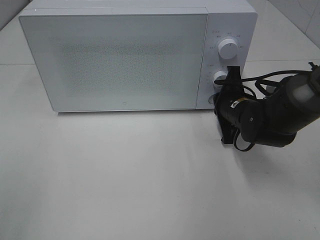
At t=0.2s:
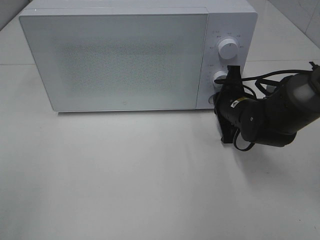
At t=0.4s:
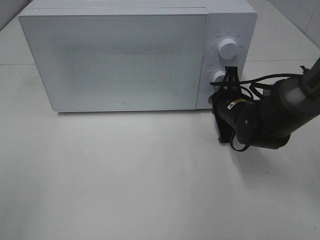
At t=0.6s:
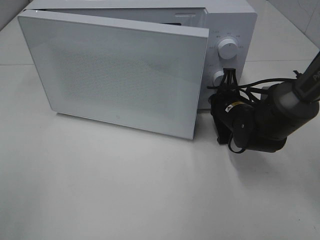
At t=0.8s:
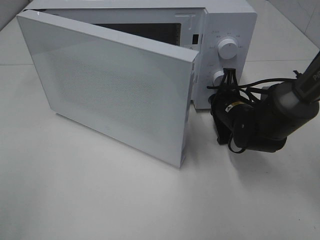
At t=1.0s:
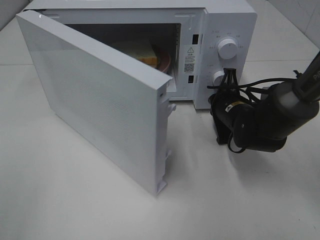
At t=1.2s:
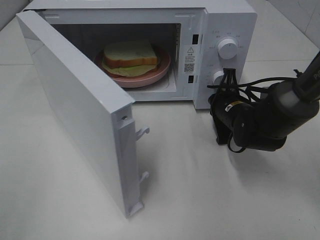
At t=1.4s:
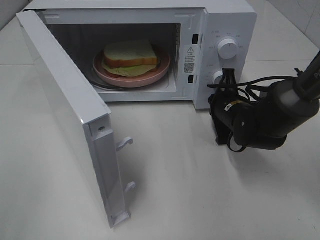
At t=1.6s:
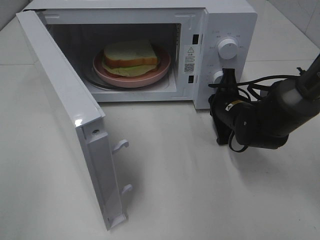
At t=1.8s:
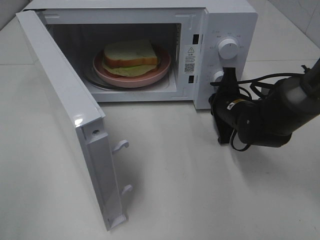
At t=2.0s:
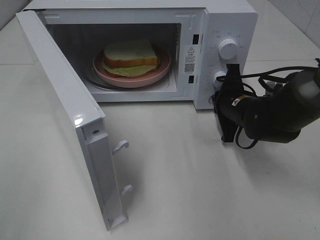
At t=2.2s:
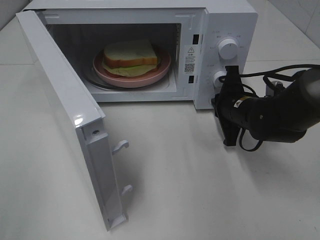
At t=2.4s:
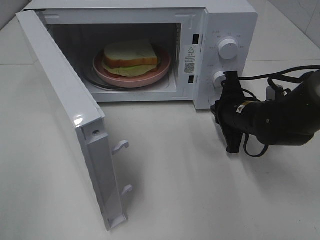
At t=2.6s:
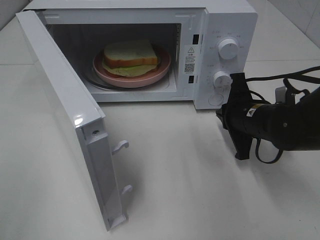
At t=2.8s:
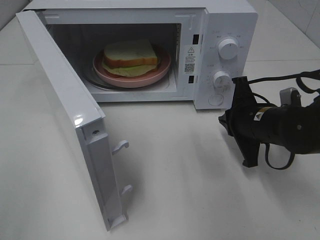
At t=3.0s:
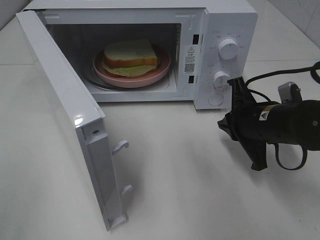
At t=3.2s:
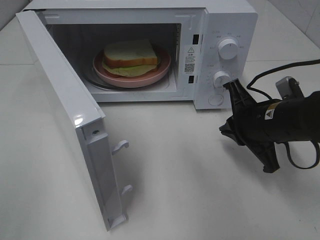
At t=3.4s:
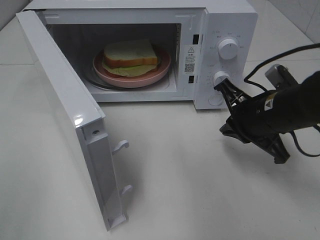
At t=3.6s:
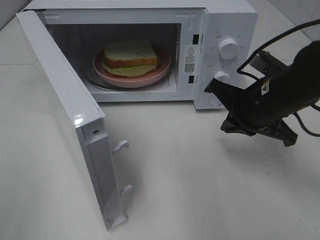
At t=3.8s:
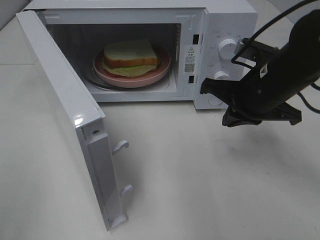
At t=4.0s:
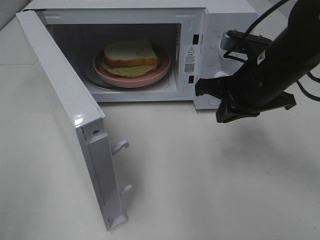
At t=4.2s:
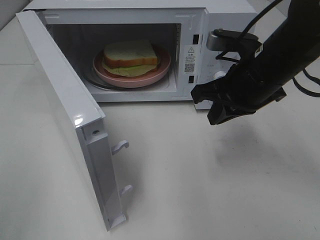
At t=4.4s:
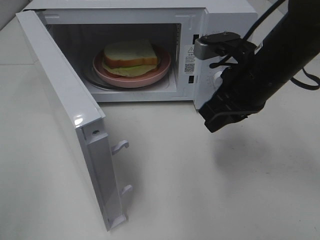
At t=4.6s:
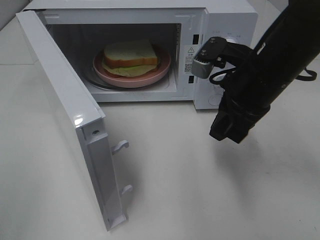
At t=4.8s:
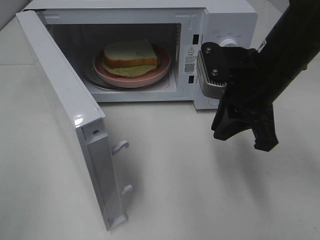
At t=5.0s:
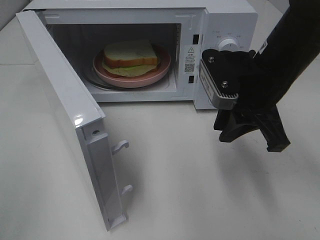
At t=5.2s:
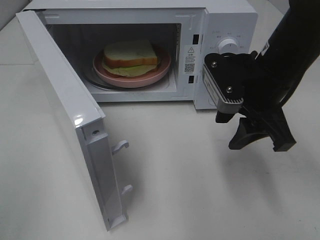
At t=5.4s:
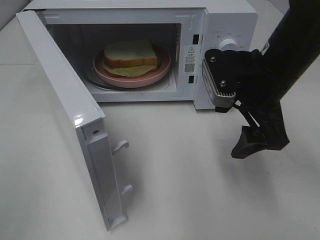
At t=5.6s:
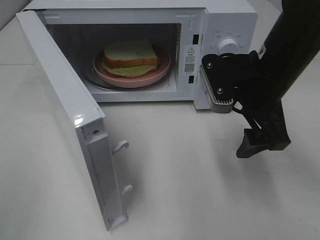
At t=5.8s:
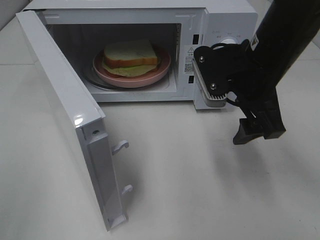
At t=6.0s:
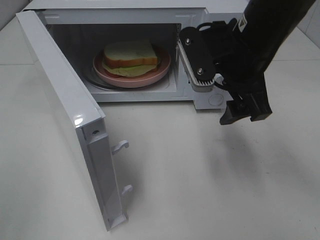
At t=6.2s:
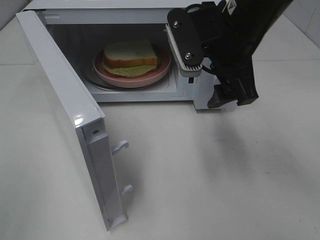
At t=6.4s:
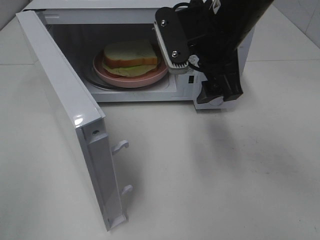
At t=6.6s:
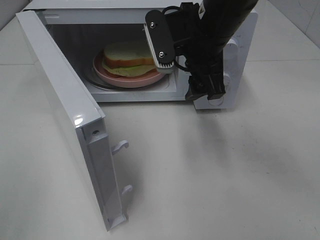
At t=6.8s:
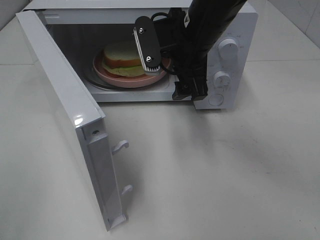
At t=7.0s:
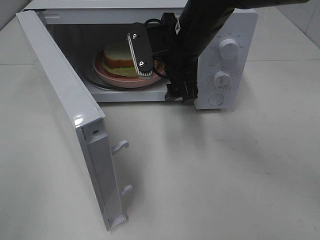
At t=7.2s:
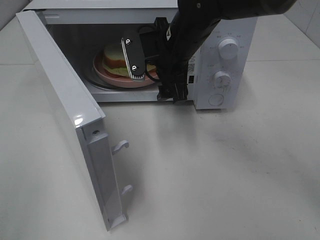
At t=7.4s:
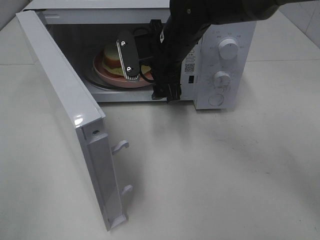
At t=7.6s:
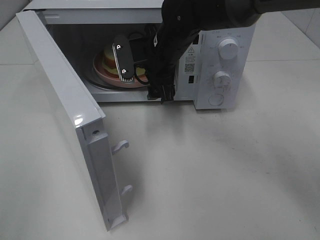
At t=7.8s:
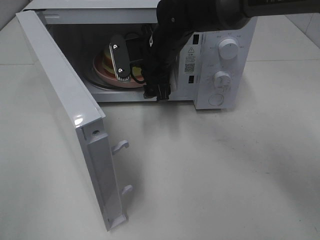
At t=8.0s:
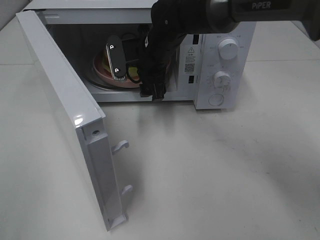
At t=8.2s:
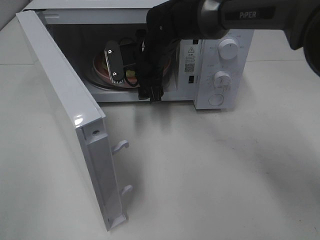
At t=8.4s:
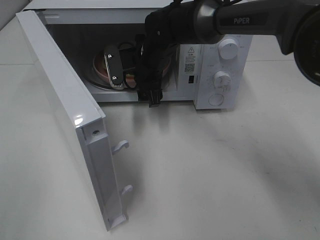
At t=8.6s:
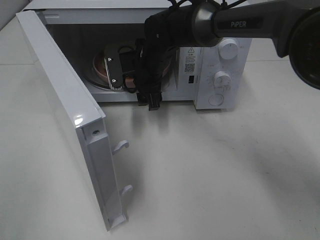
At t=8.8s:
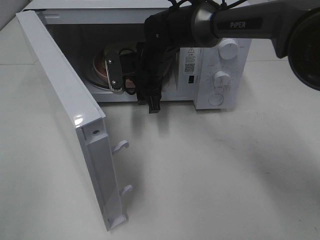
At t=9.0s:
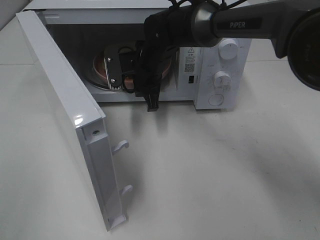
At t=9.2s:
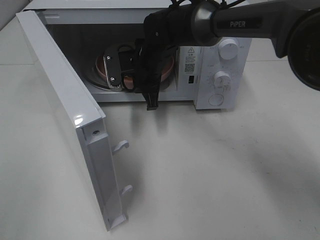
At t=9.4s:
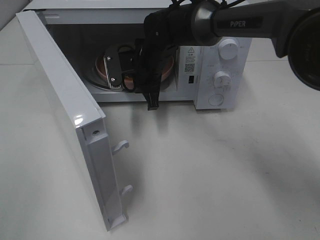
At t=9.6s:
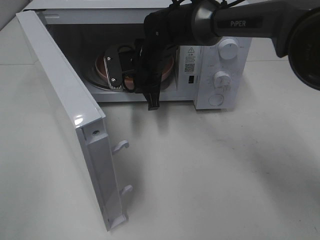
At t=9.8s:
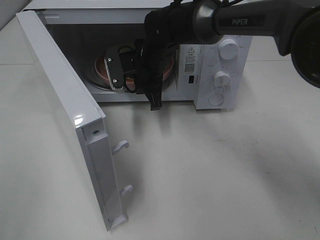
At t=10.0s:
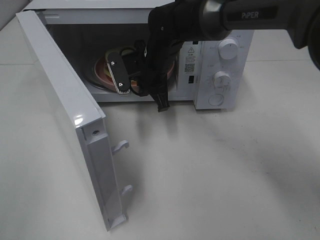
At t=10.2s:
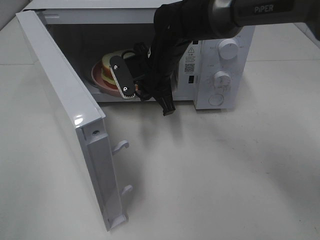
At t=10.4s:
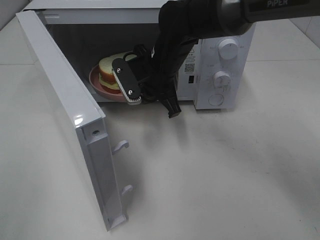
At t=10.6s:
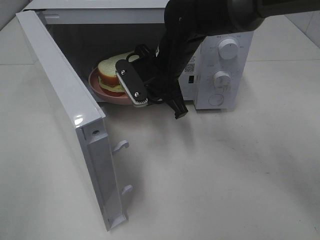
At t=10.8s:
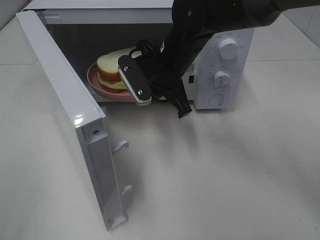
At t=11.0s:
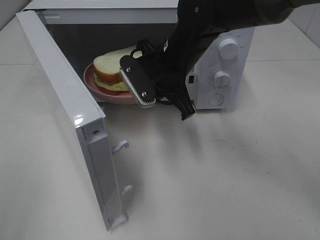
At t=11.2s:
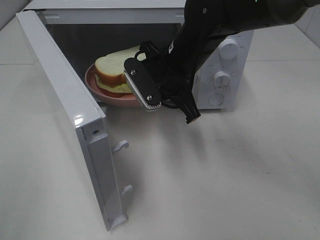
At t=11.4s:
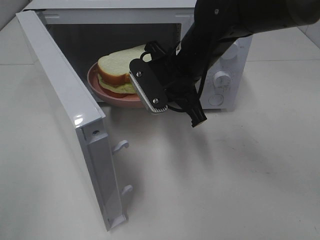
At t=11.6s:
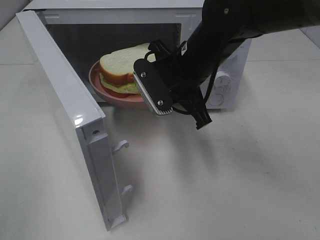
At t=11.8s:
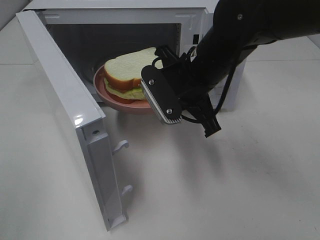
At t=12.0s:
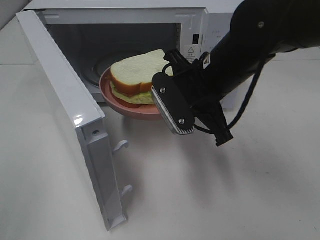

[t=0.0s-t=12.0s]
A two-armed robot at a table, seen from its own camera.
Task of the whole recording: Heat Sandwich.
Step, t=0.0s to t=2.2s: Right hand: press the switch.
Step, t=2.4s to t=9.4s: Right hand: grab the plate with the sandwich.
t=1.6s to t=3.0s: The right gripper heads backward, covering about 10 cm.
t=3.0s to t=4.4s: The right gripper heads upward, covering approximately 10 cm.
t=4.4s to t=6.0s: The right gripper changes place by roughly 5 cm, and opens its fingers.
t=6.0s to t=7.6s: The right gripper travels forward, to the left and downward by about 15 cm.
t=7.6s to t=9.0s: The right gripper ends up some 5 cm from where it was, and closes up.
t=9.0s to t=10.4s: The right gripper moves about 5 cm.
t=10.4s to t=12.0s: The right gripper is displaced backward and to the right by some 10 cm.

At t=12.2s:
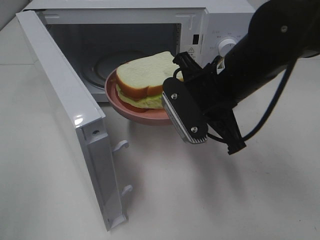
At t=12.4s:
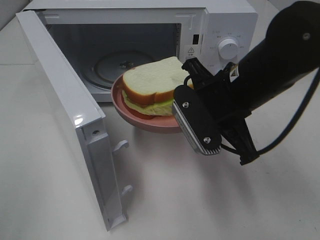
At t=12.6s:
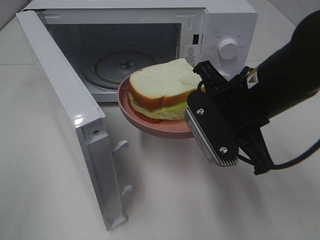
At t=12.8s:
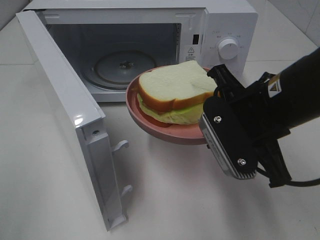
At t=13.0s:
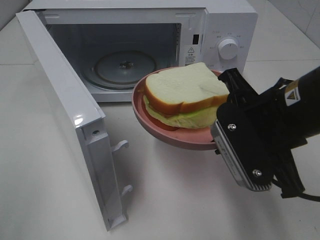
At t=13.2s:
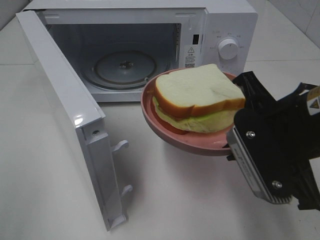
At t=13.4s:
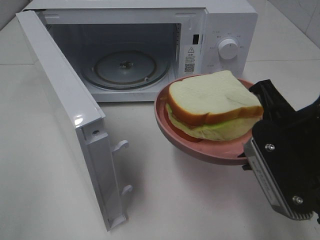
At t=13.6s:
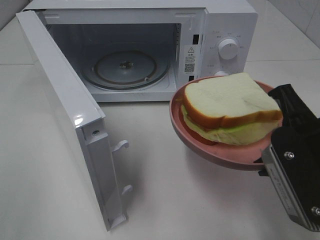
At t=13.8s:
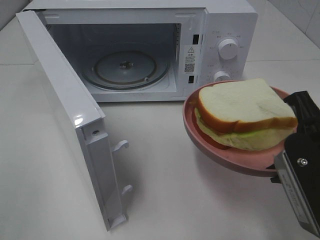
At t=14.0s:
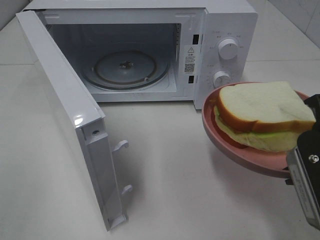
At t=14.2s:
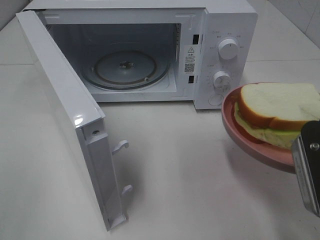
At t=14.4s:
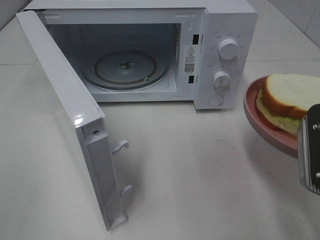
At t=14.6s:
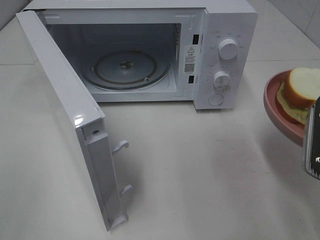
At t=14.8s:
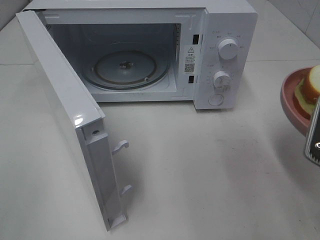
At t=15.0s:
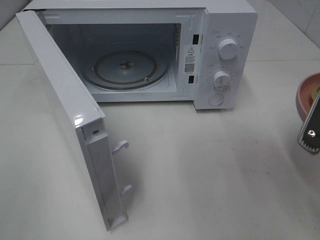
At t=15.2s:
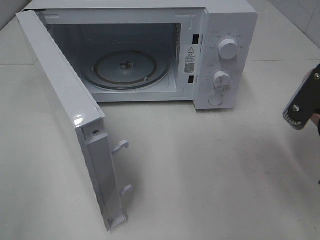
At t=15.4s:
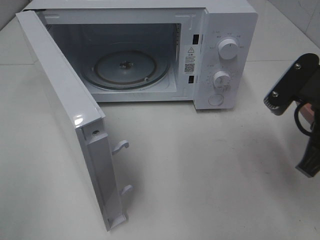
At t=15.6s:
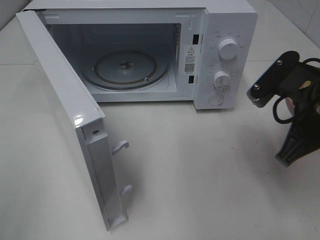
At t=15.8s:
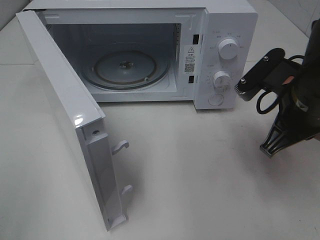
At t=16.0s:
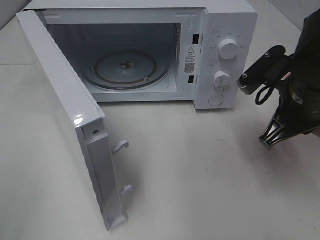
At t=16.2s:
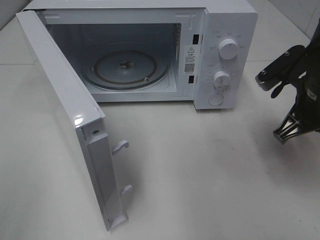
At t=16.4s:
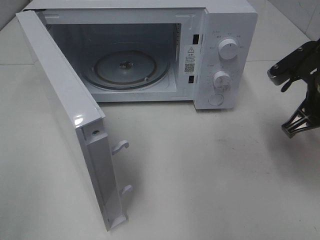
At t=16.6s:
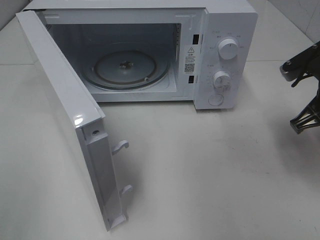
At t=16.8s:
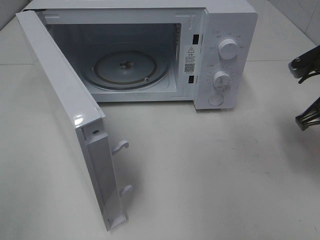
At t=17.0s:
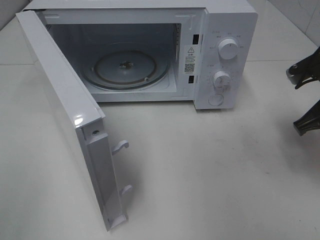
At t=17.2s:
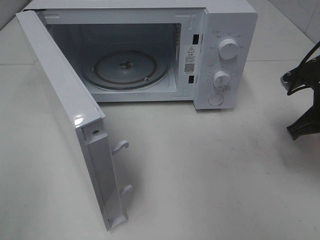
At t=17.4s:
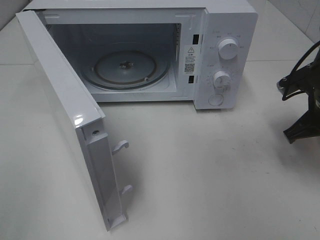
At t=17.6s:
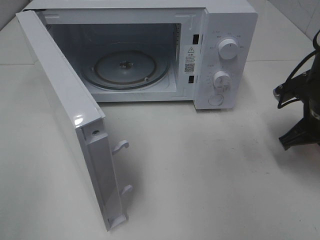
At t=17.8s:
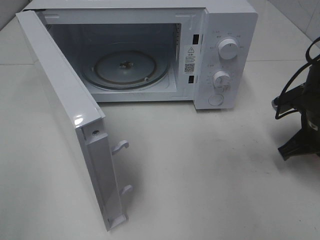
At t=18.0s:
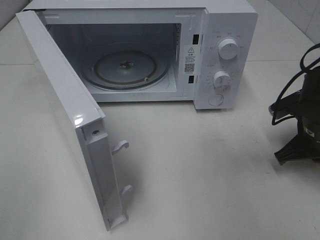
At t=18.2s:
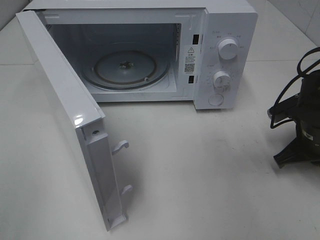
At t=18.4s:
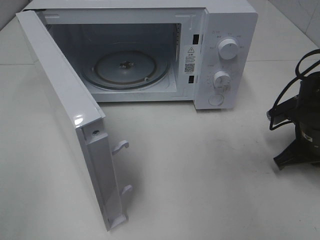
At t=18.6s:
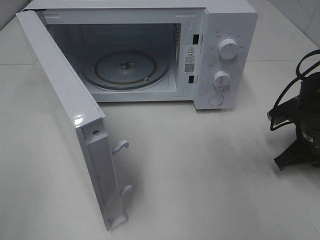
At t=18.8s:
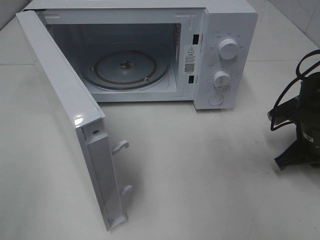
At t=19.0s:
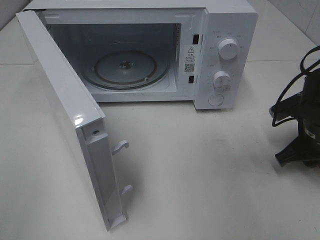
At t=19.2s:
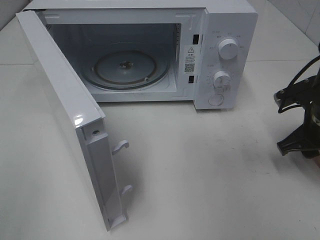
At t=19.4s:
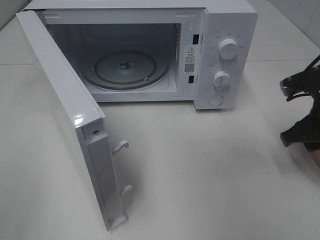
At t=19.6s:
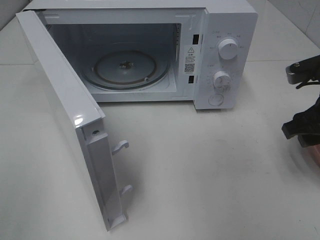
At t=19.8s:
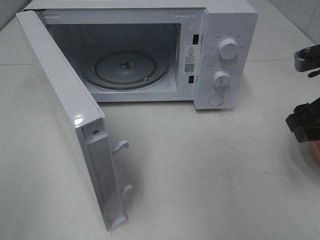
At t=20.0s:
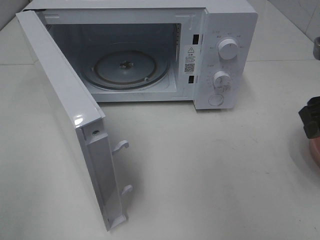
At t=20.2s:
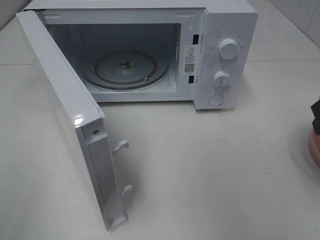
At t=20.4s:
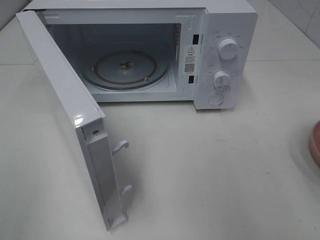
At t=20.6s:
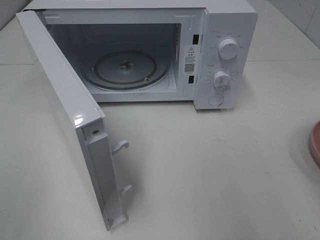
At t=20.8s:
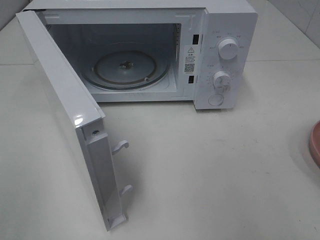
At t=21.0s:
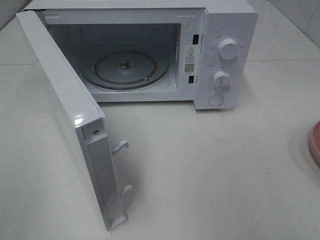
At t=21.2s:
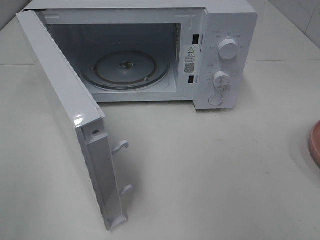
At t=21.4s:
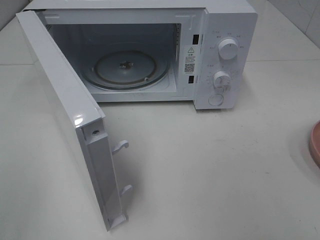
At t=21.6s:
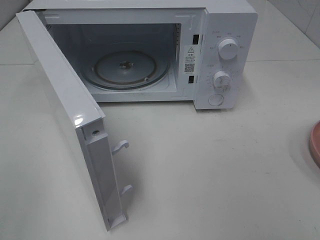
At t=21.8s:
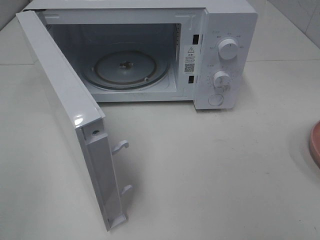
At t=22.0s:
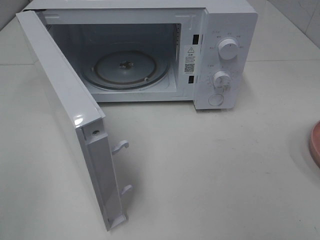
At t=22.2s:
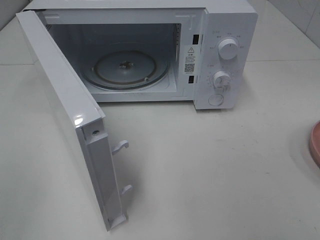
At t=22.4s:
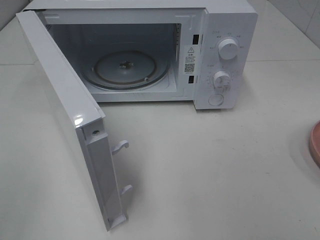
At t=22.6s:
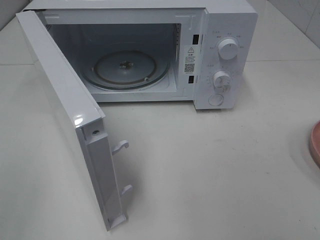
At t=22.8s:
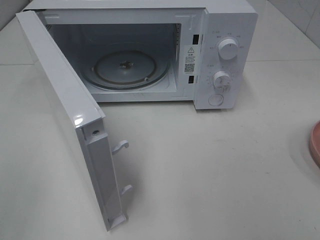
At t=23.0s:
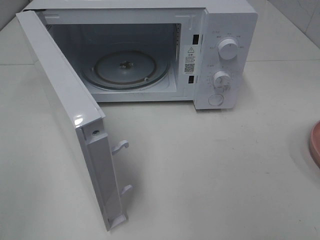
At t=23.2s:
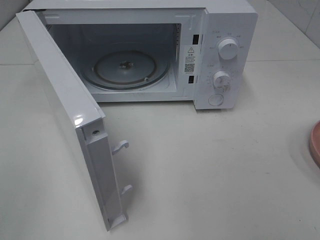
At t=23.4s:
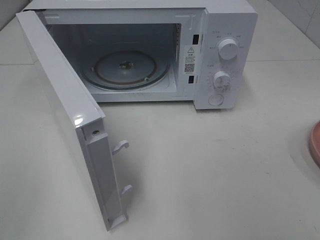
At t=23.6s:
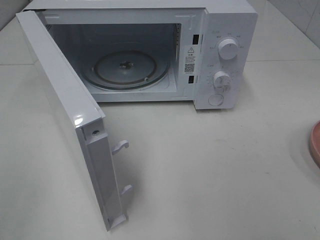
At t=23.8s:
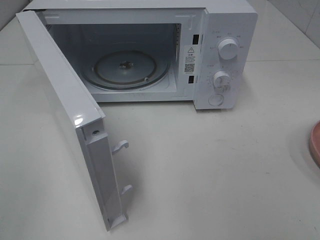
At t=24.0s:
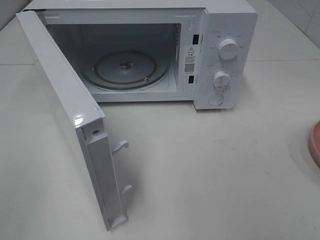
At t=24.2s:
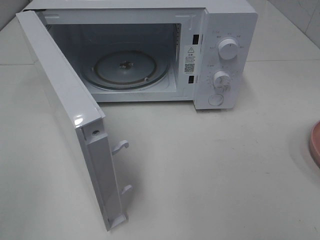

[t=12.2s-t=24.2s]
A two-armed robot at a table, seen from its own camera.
Task of the whole recording: Heat Sandwich.
Step, t=12.2s to t=19.0s: Right hand: place the plate on the table.
t=12.2s to t=13.8s: The right gripper heads backward and to the right, covering roughly 15 cm.
t=15.2s to t=16.6s: The right gripper goes roughly 10 cm forward.
t=16.6s to t=18.2s: The right gripper goes some 10 cm downward.
t=18.2s to t=19.8s: The right gripper moves upward, roughly 15 cm, and opens its fingers.
t=19.8s to t=21.2s: The right gripper moves backward and upward, approximately 20 cm.
t=22.6s to t=24.2s: The two grippers keep their place.
